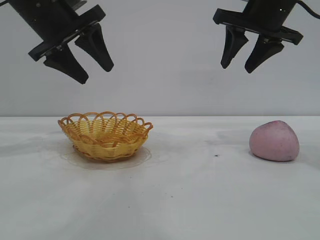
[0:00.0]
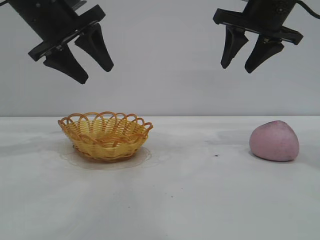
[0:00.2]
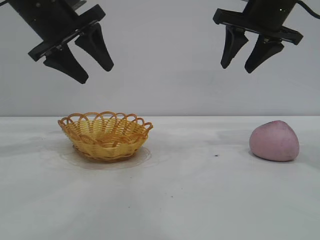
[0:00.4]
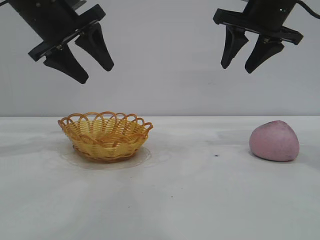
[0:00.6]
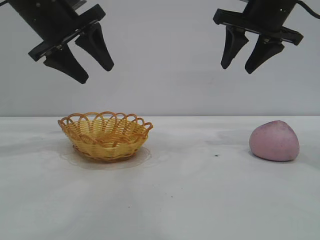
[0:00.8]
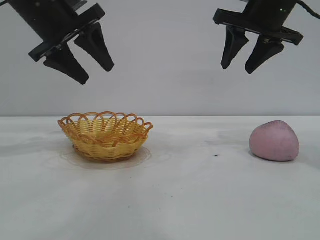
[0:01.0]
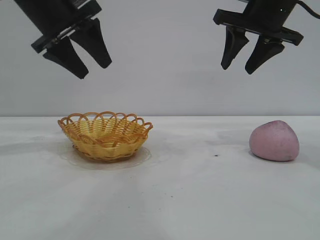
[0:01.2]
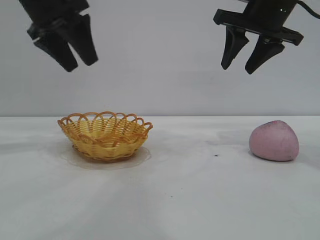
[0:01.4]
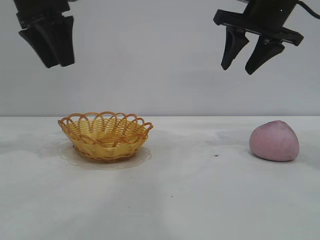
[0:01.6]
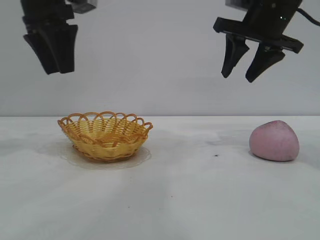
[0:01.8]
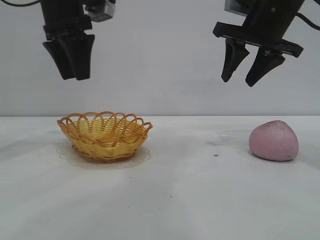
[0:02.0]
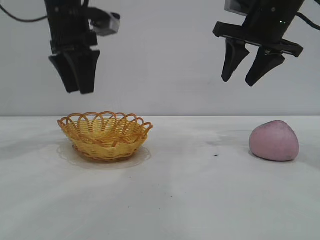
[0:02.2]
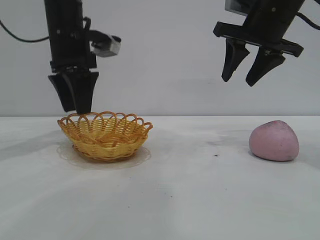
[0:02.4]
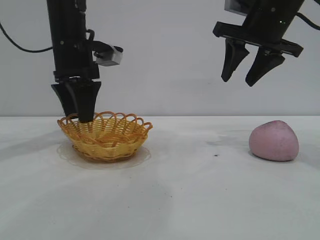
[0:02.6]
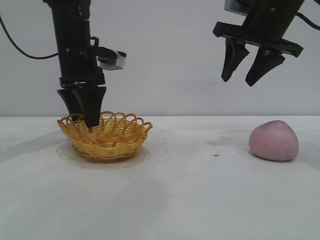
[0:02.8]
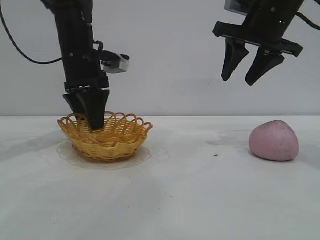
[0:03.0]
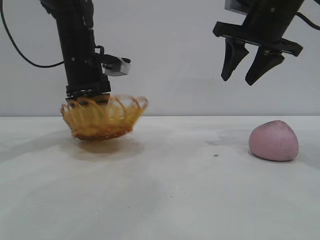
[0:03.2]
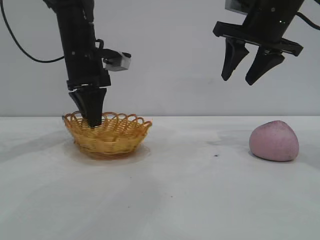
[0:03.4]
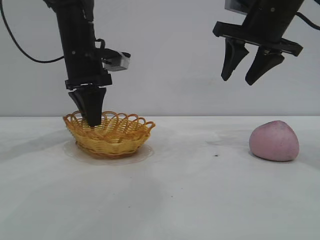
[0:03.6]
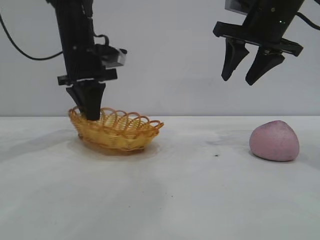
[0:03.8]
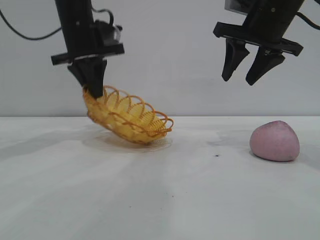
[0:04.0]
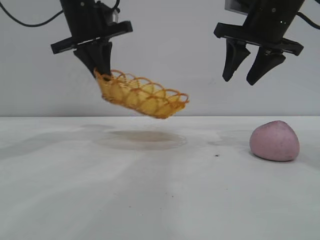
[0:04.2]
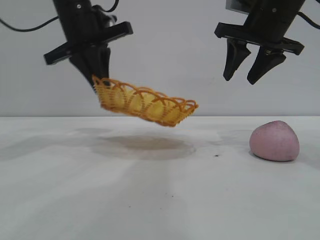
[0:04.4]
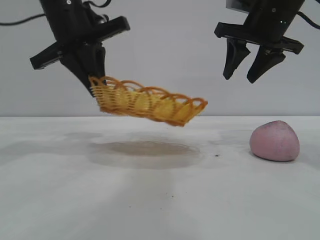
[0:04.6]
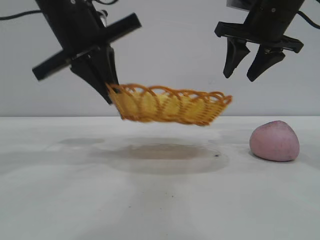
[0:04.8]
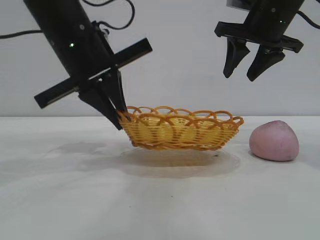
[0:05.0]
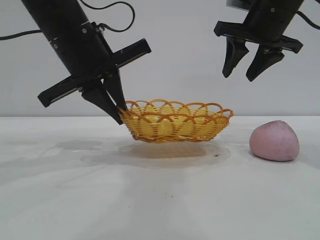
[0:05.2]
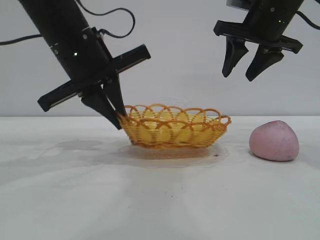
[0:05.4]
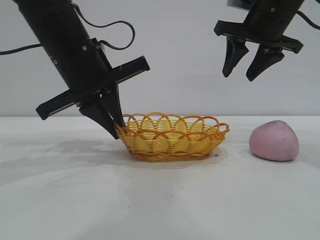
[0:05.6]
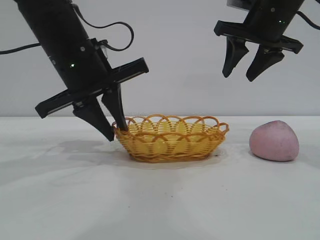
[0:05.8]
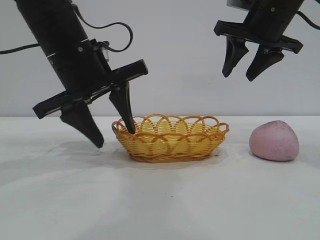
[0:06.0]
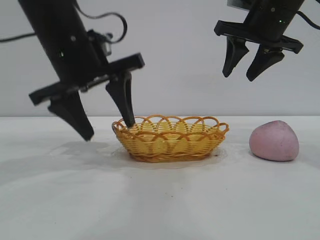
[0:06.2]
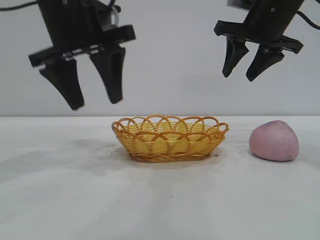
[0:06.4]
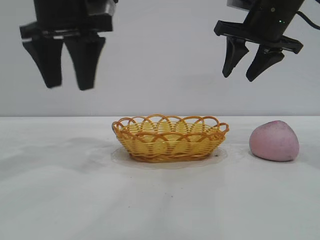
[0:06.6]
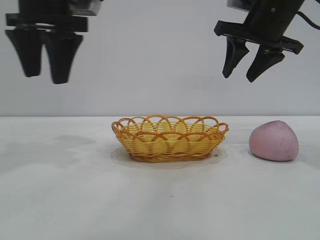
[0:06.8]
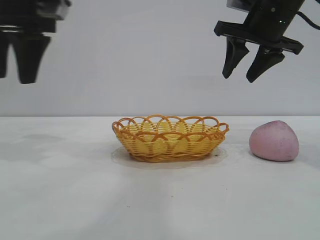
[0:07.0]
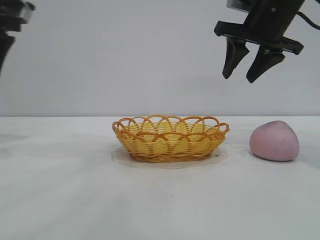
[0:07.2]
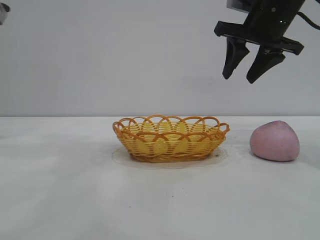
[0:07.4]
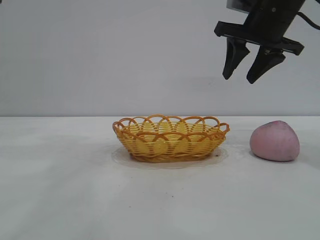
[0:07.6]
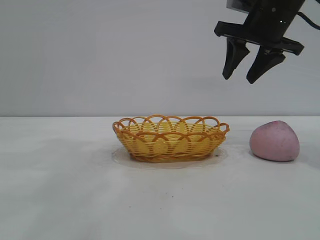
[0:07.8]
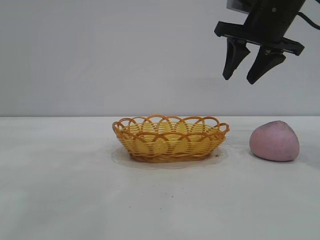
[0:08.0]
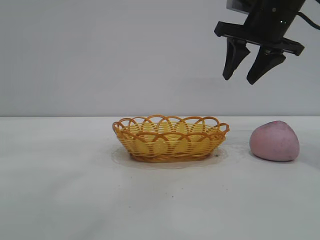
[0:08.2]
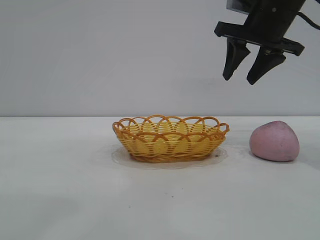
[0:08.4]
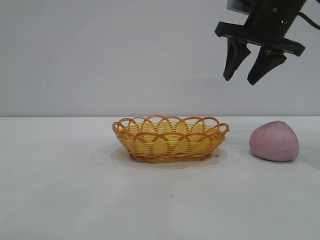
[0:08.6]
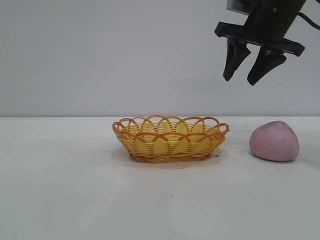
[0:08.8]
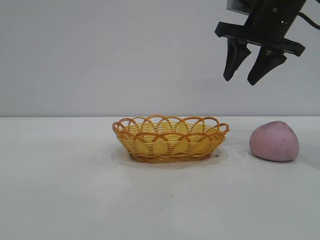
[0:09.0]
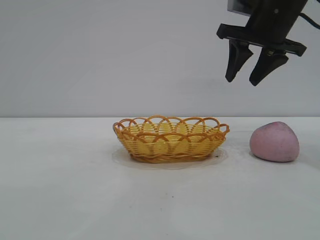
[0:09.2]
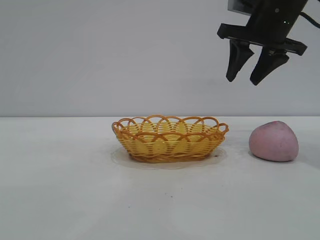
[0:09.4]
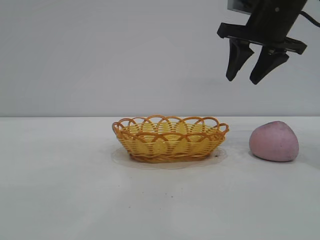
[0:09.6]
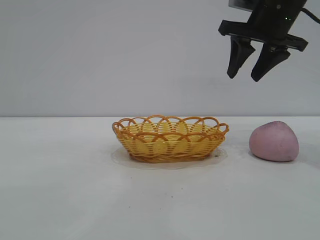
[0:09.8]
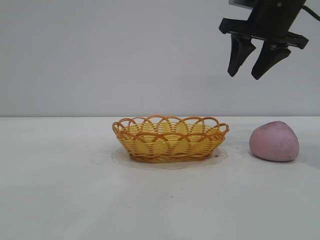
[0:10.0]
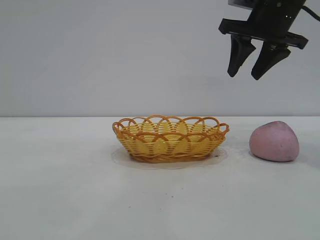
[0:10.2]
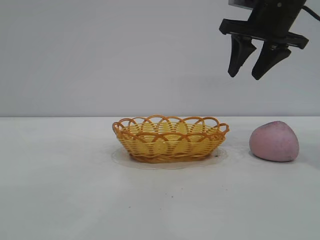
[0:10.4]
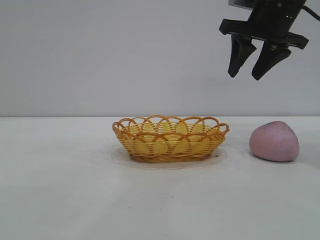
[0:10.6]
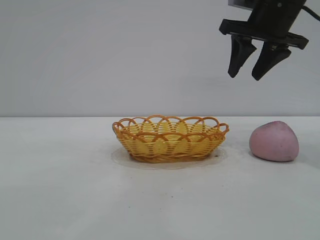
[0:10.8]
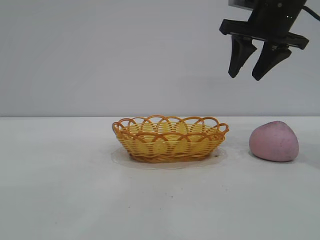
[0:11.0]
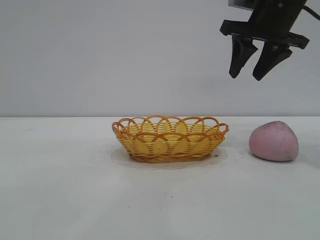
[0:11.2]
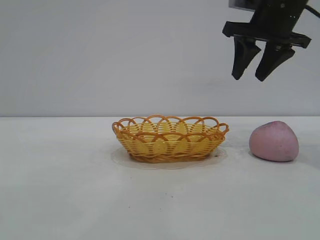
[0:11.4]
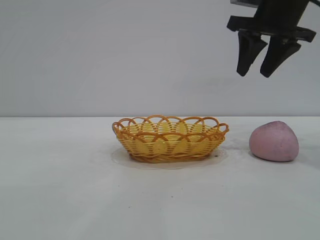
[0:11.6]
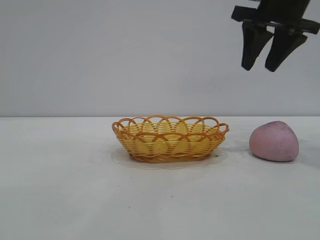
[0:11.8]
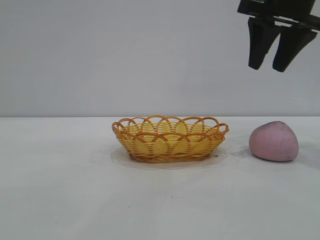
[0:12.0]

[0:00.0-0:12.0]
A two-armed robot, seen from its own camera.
Task of the whole recording: pick up the peach and put it into the basket.
Step, 0:00.0 to 0:06.4: Move the basket to the center of view.

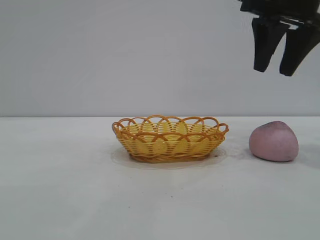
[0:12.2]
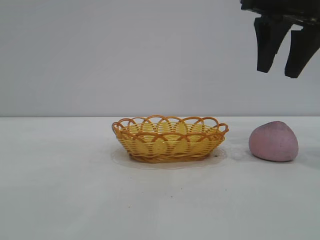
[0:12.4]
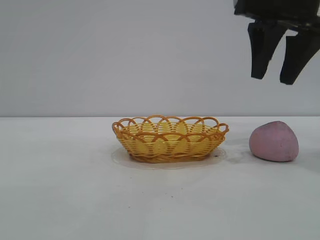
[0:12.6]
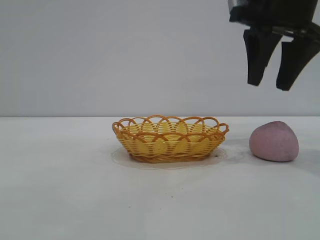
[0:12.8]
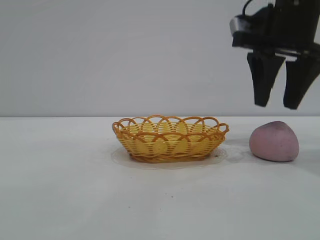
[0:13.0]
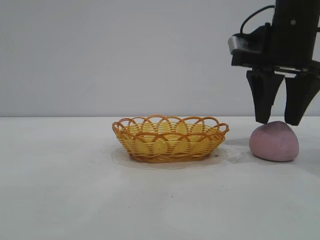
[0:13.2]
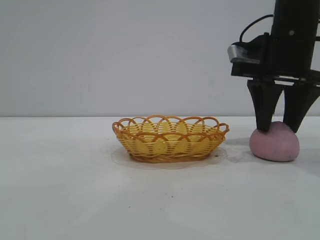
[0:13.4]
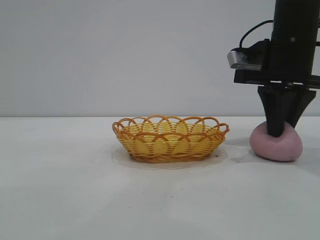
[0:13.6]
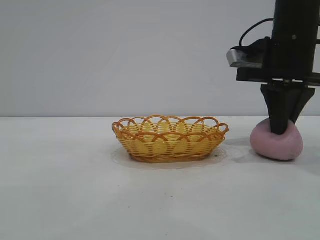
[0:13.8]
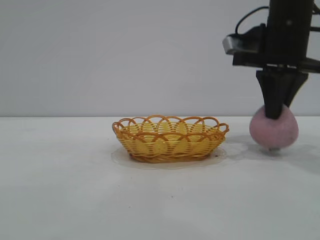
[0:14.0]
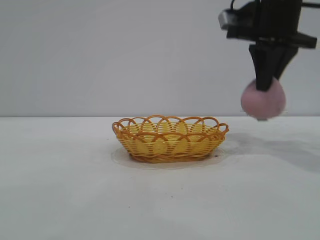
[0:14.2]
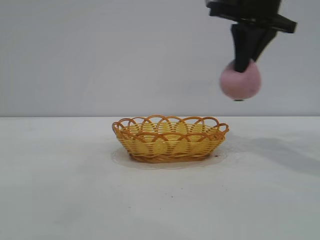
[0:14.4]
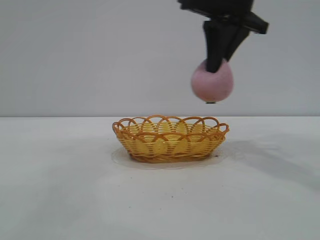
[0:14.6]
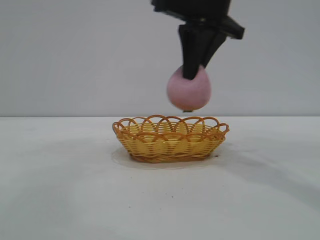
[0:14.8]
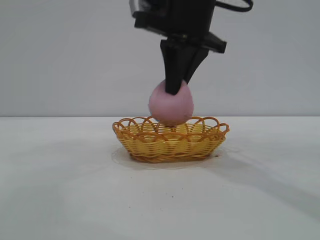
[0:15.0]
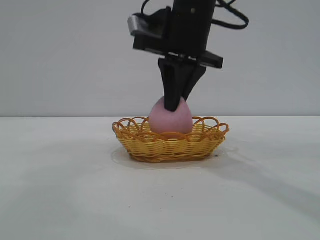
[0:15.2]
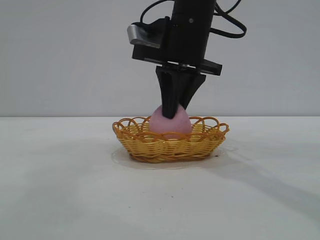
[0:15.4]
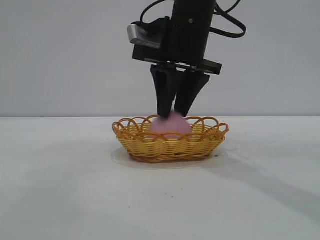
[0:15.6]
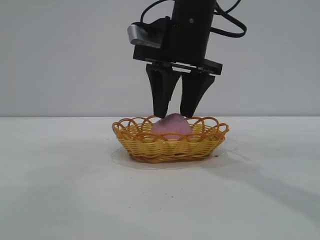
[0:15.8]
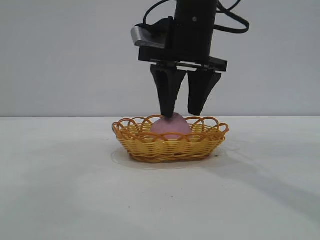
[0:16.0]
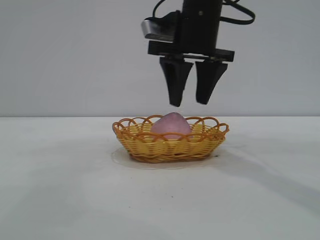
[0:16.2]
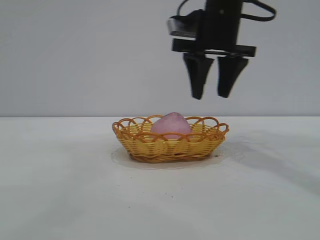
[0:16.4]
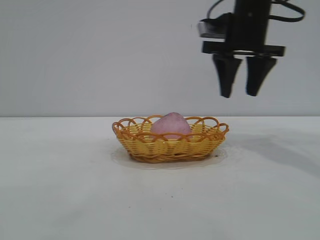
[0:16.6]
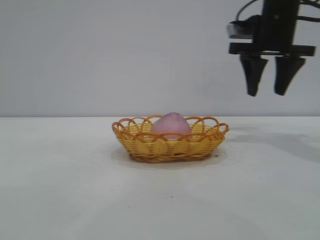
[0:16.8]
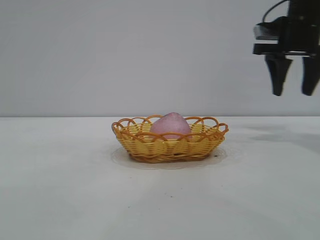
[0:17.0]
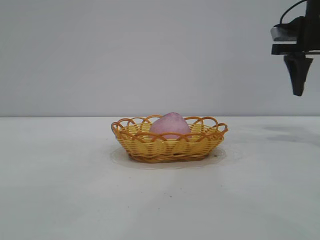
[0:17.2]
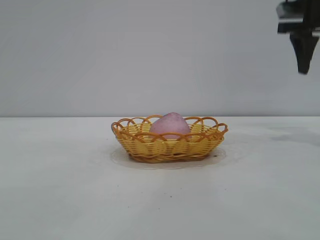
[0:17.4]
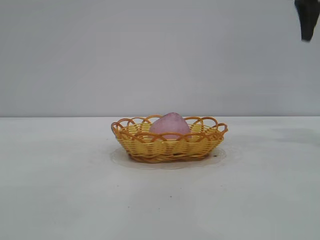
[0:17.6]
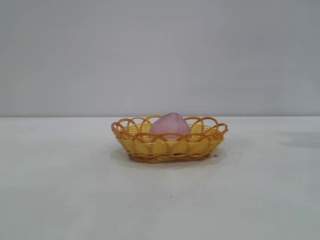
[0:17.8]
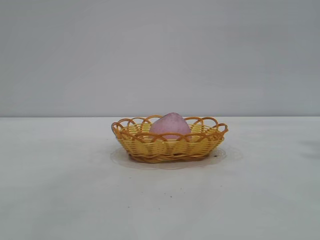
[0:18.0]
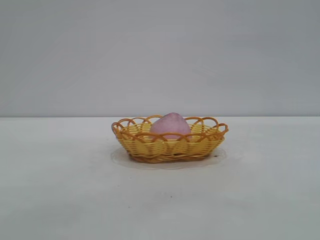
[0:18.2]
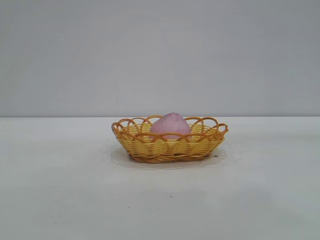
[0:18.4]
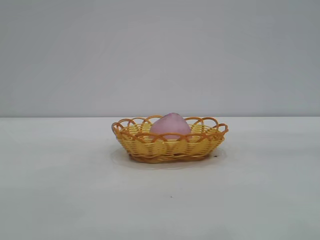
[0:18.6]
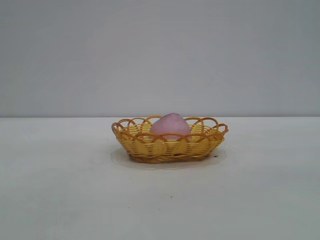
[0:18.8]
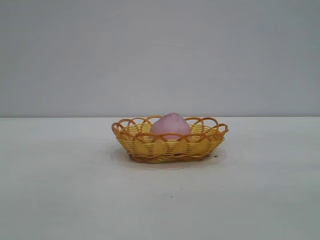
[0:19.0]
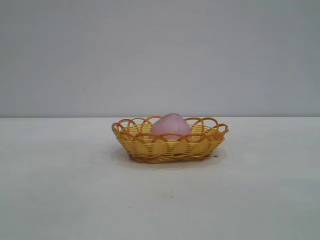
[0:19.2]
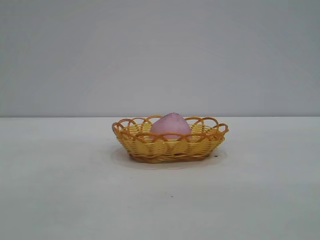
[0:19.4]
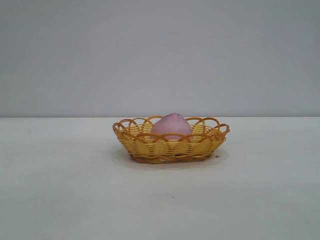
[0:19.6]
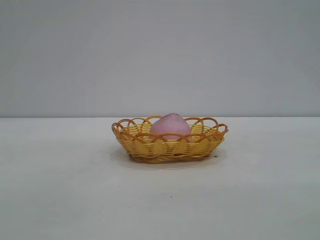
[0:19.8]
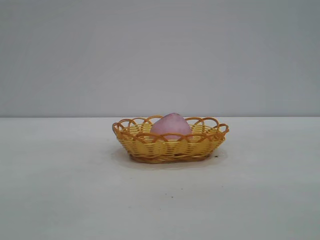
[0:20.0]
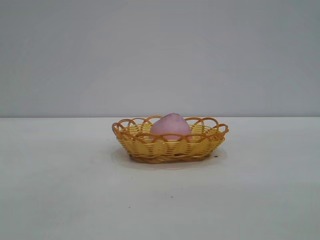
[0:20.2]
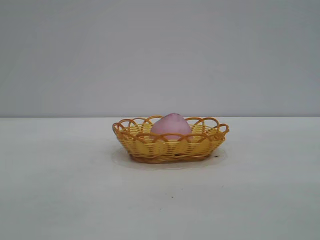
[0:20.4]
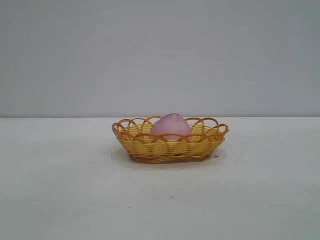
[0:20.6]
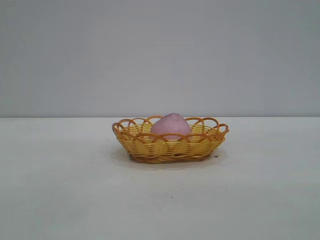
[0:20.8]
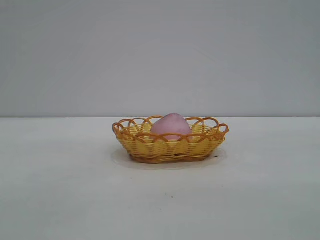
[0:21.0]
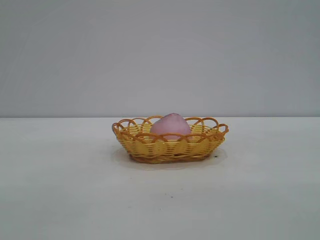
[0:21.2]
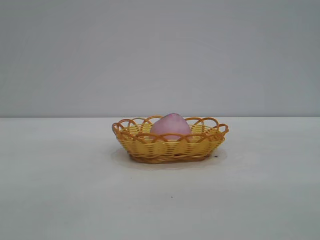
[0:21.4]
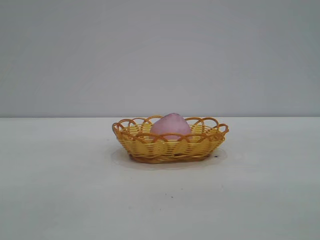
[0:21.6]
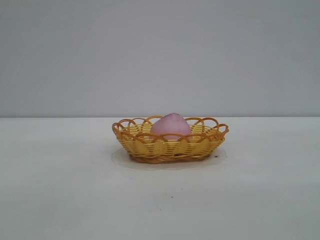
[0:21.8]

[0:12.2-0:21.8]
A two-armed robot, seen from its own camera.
Task of the whole recording: pick up the peach and put it into the basket.
Step, 0:14.2 to 0:16.2: place the peach into the basket.

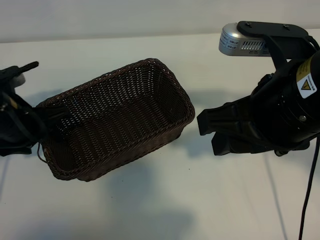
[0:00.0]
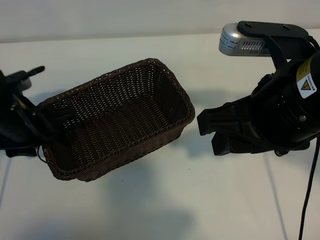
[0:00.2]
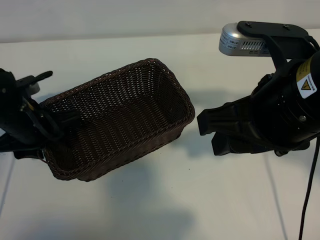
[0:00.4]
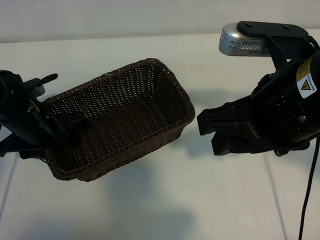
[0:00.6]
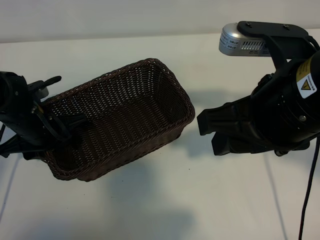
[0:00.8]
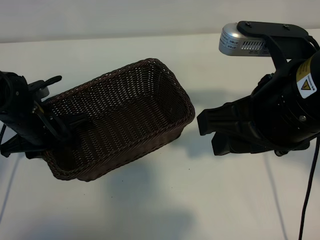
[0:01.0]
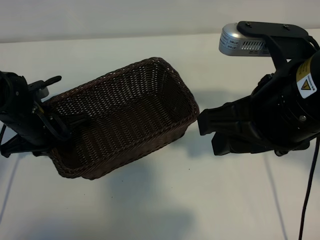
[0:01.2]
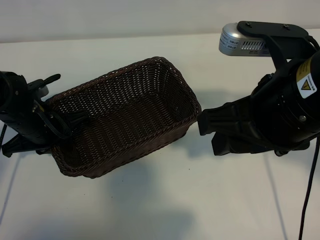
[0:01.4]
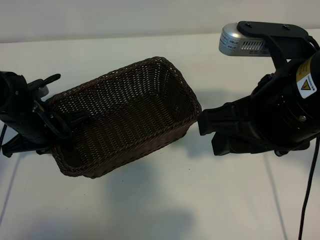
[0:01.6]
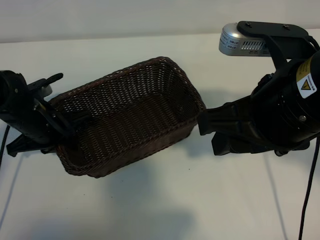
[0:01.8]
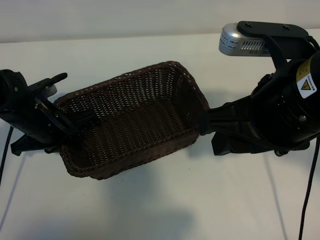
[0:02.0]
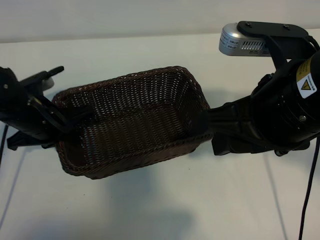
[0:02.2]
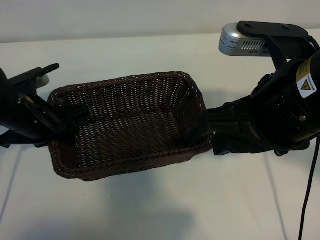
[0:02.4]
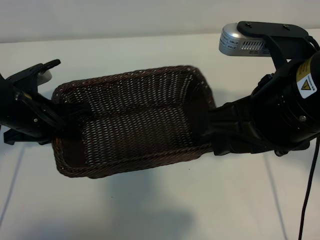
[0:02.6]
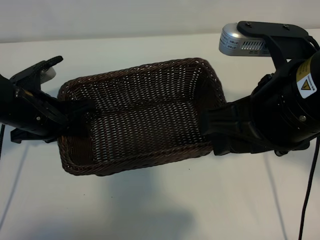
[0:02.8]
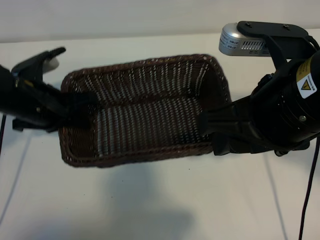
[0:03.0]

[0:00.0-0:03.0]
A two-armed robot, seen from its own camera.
Task of the whole recording: pick up the peach and put it into the basket.
Step, 0:00.0 to 0:02.0: Grasp the basket with left gripper.
